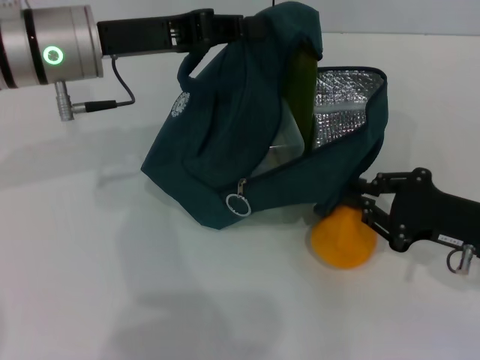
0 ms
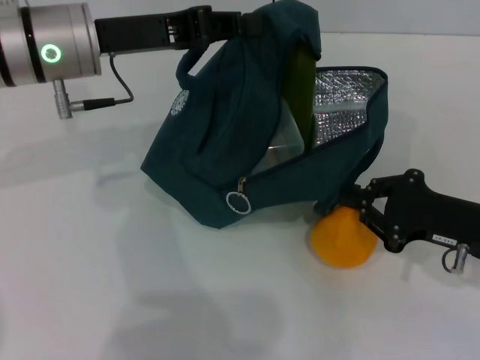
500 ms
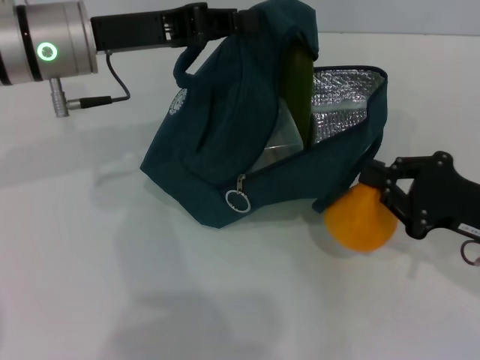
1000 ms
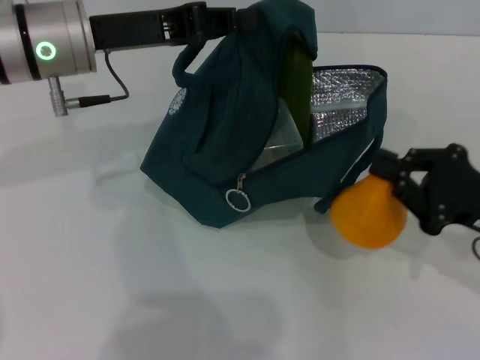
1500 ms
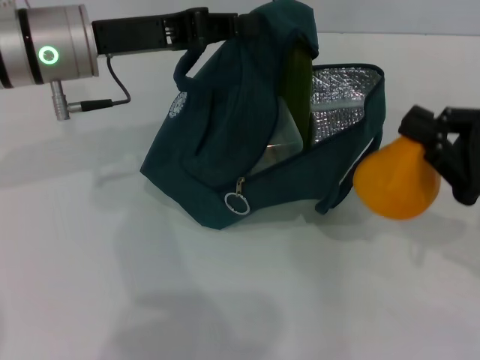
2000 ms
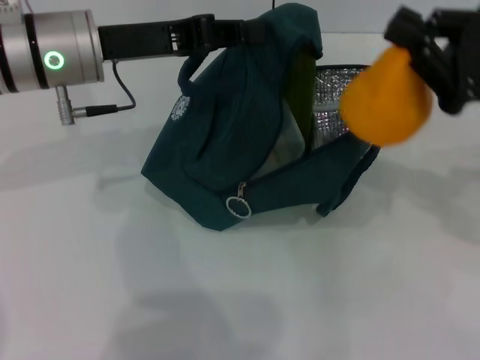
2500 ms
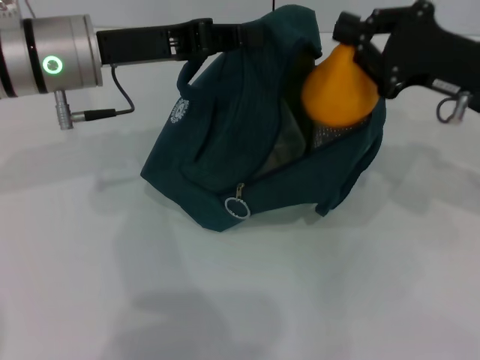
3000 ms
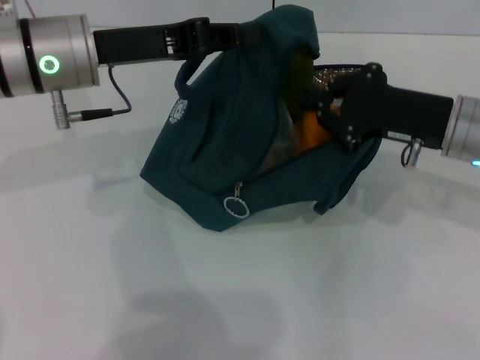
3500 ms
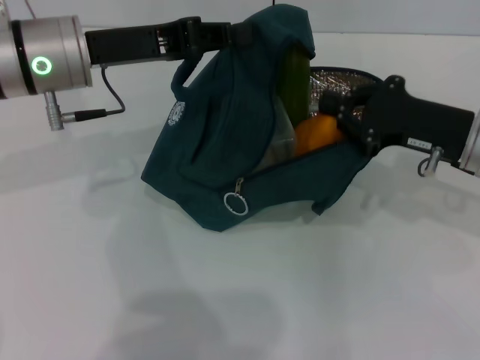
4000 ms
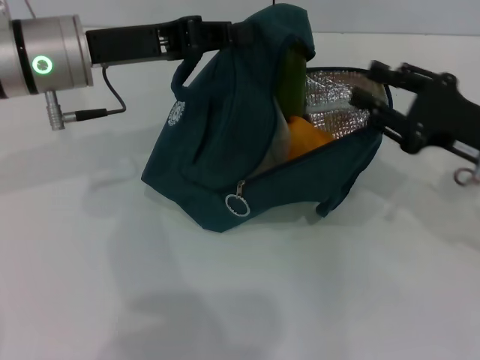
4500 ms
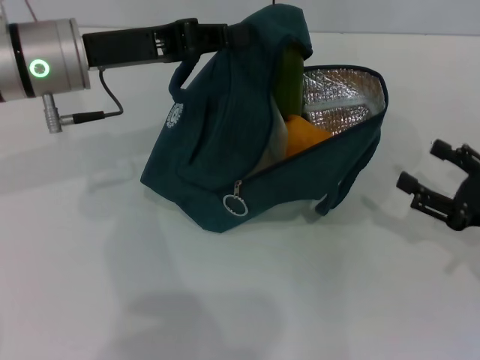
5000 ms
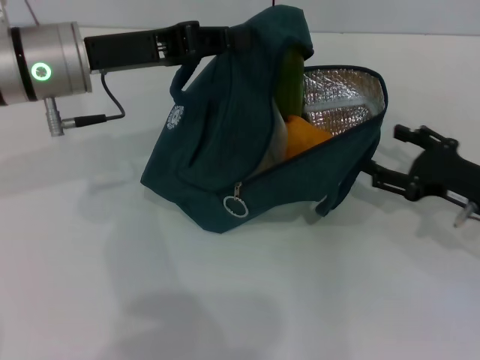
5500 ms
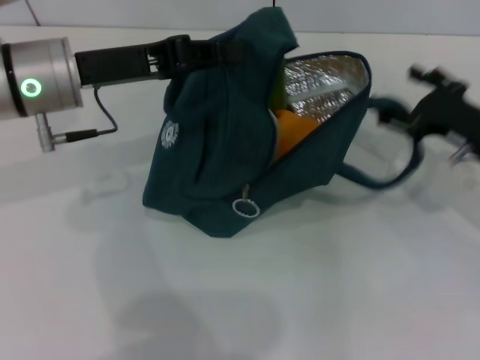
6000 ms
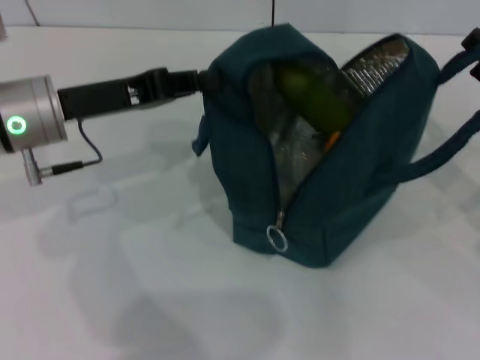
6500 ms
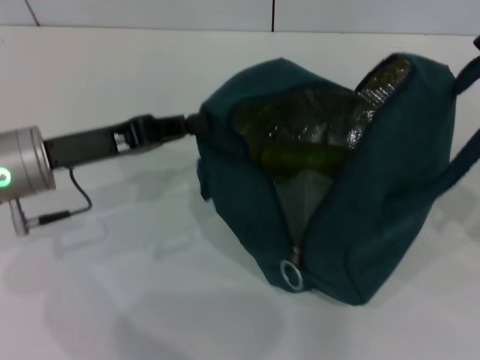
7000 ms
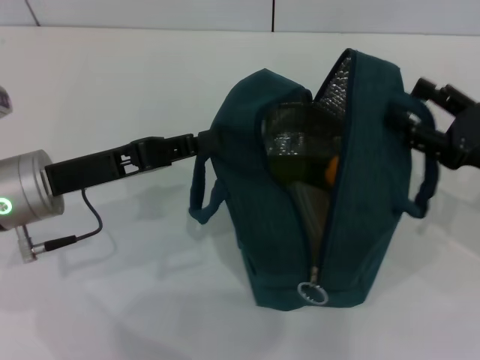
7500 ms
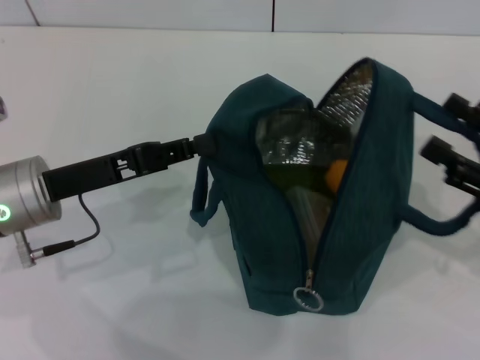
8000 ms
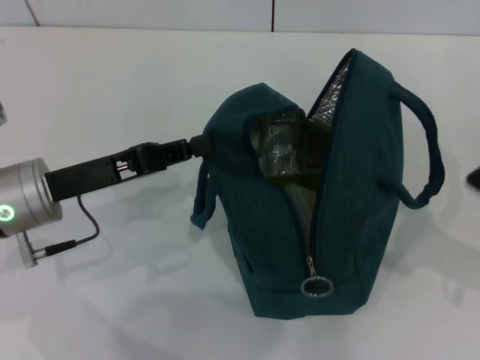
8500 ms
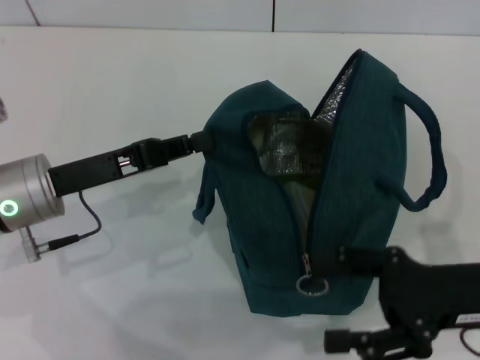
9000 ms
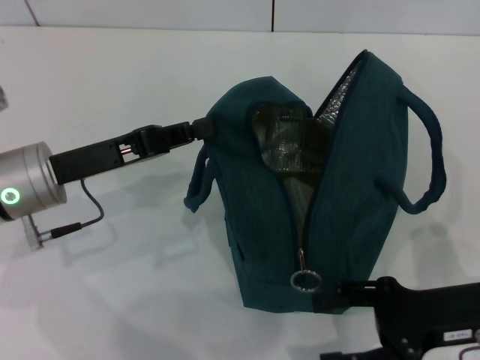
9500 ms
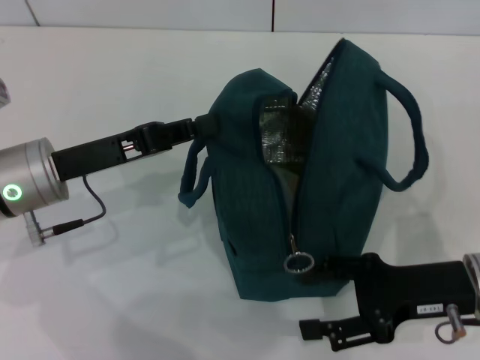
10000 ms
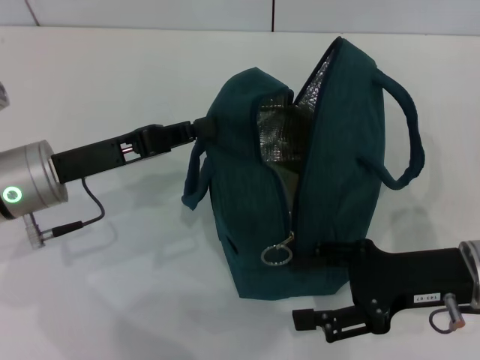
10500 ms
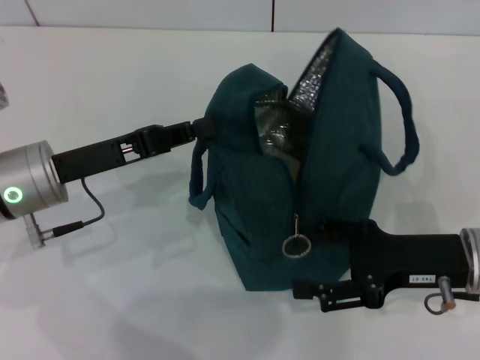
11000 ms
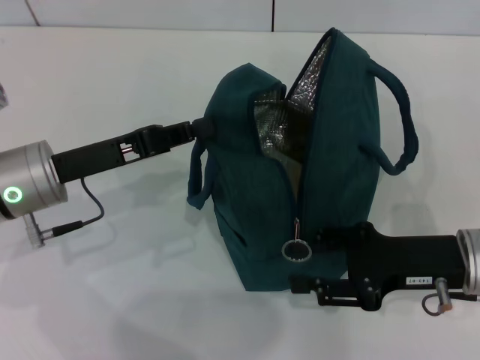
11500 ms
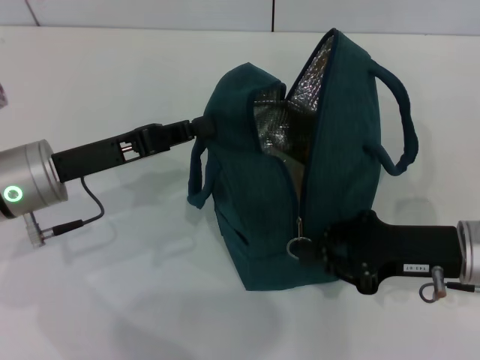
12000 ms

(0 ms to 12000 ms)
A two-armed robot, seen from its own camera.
Step, 4500 ms - 8000 ms: Hold the lunch bag with your right hand.
0 ms - 2000 ms: The right gripper is displaced upward by some 5 cm.
2000 ms - 4000 ms: The right gripper is displaced forward and to the left by approximately 10 cm.
4000 ms - 6000 ms: The right gripper reaches some 10 cm backward, then returns, and opens.
6000 ms - 8000 ms: The left gripper shifts approximately 10 cm backward and downward. Meanwhile the right gripper is displaced backward by some 10 cm.
8000 ms - 10000 ms: The right gripper shifts approximately 10 cm to the left.
10000 ms - 12000 ms: The right gripper closes its fingers.

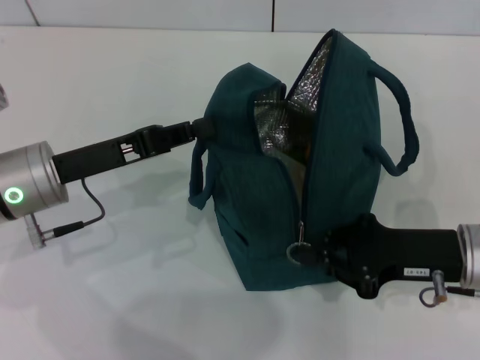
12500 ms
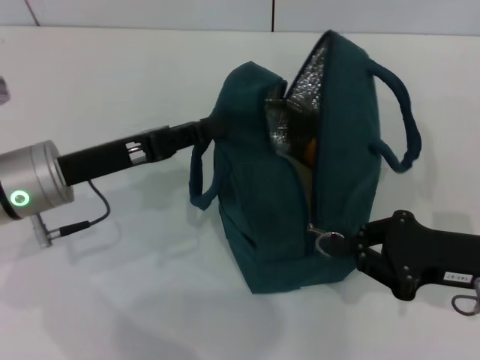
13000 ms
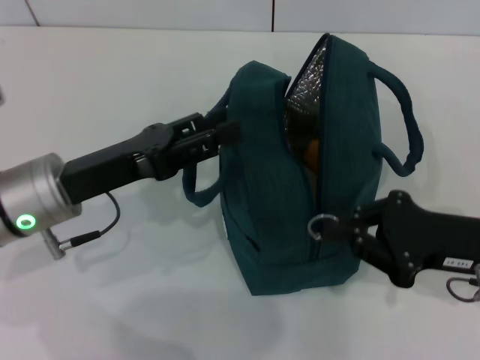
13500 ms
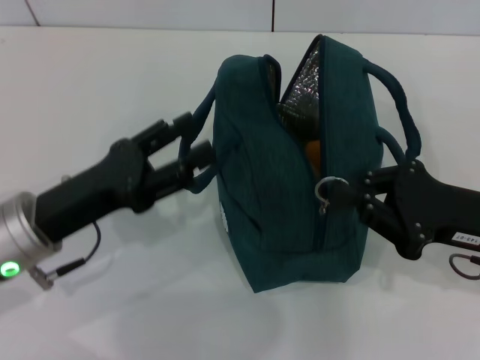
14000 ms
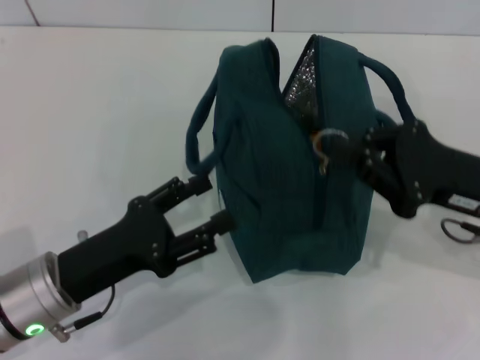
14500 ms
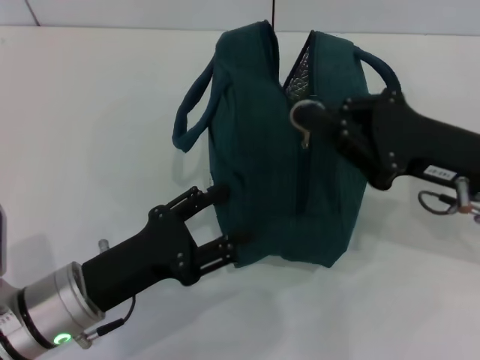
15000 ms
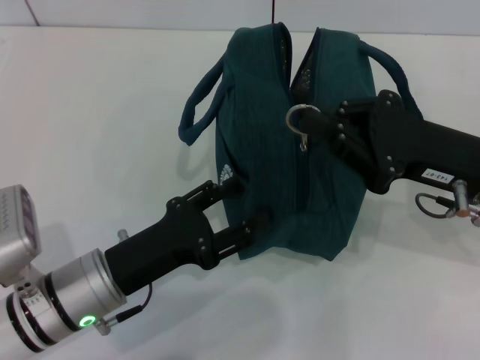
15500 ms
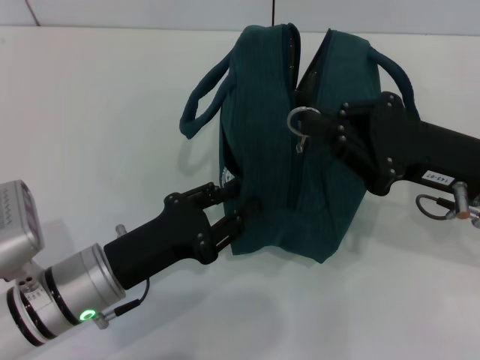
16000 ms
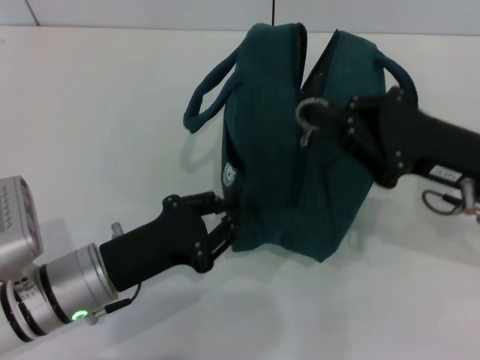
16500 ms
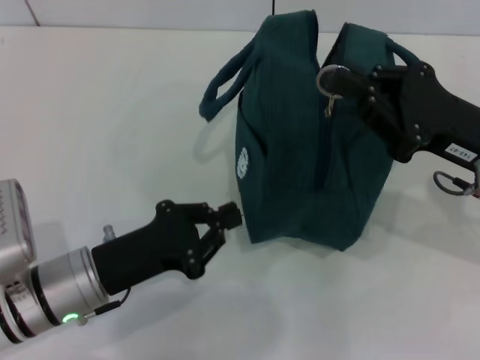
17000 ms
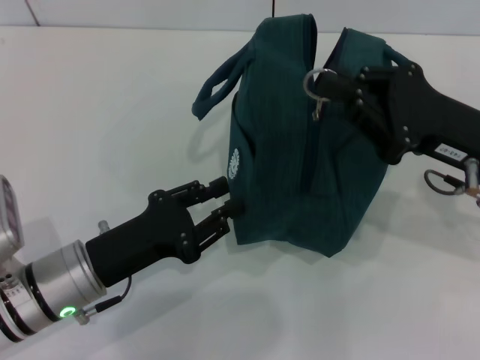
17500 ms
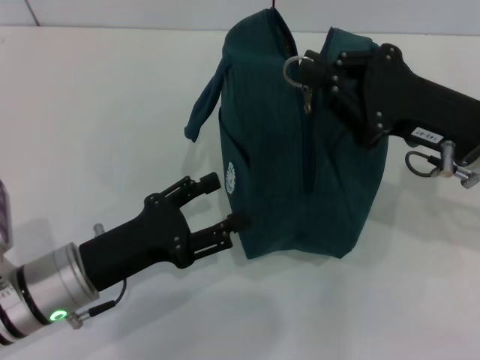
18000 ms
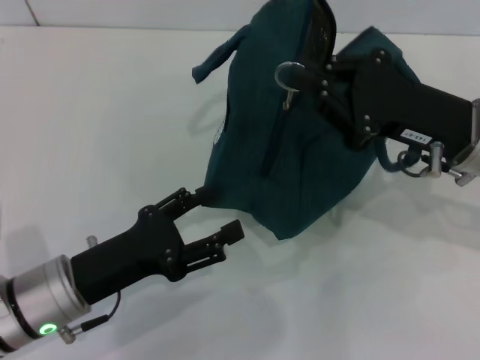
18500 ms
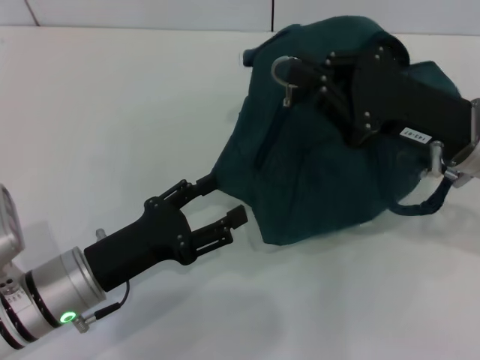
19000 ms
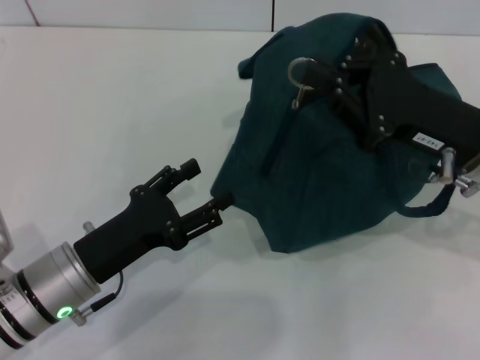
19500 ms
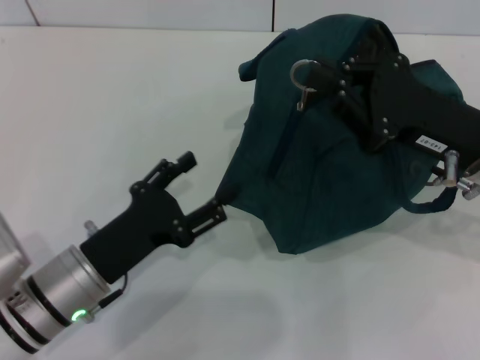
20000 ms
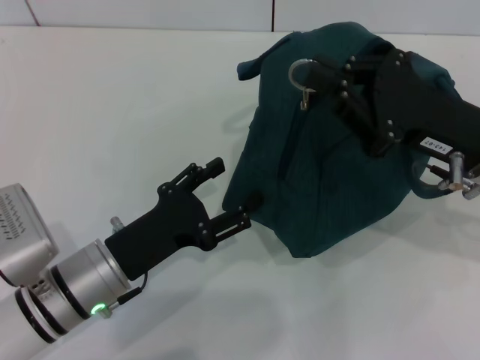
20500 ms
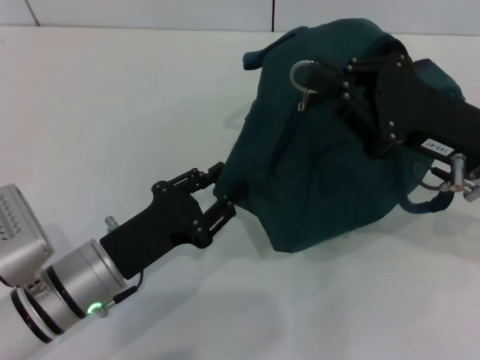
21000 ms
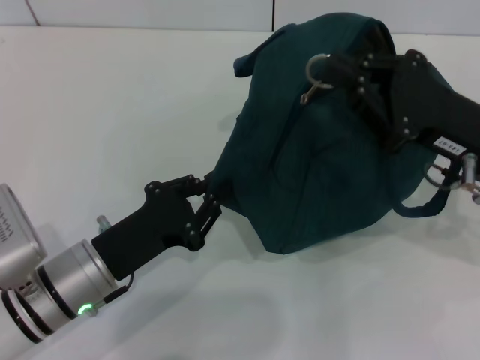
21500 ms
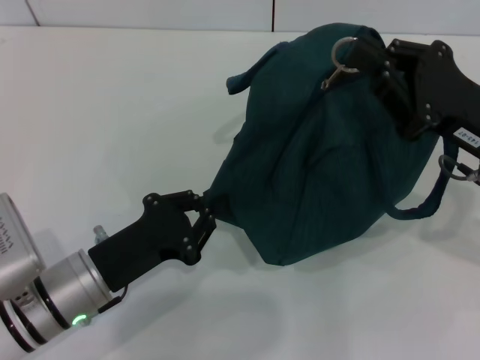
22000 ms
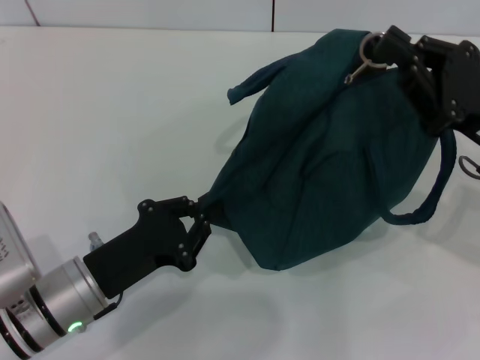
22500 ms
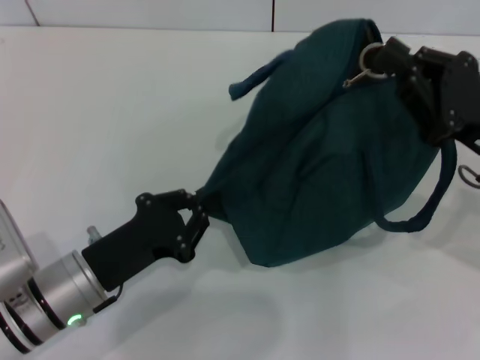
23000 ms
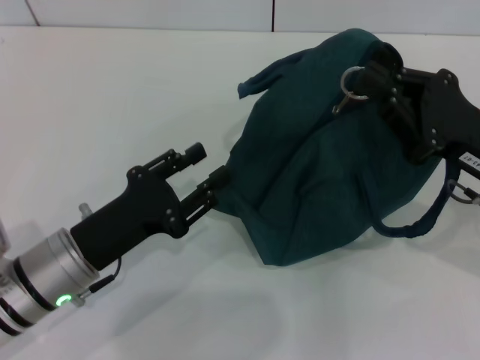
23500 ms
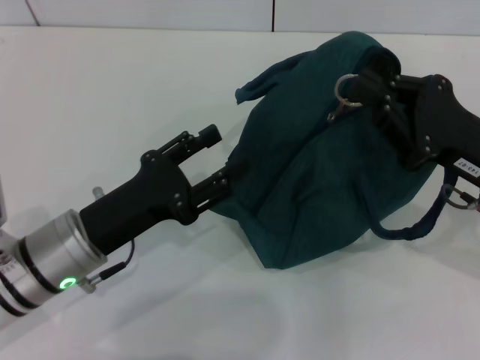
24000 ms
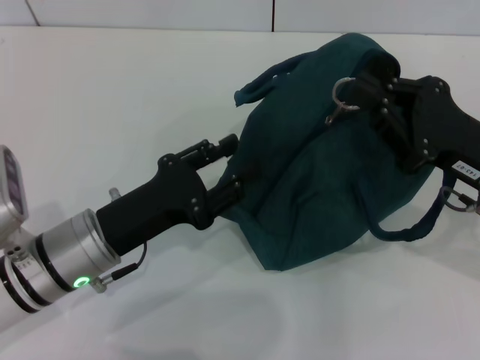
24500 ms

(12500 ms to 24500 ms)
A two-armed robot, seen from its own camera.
12500 ms - 14500 ms: The left gripper is displaced backward and downward by approximately 10 cm, and opens.
14500 ms - 16500 ms: The left gripper closes up.
16500 ms - 18500 ms: The left gripper opens.
20500 ms - 22500 ms: The left gripper closes its fingers.
22500 ms - 24500 ms: The left gripper changes place by some 5 cm, and opens.

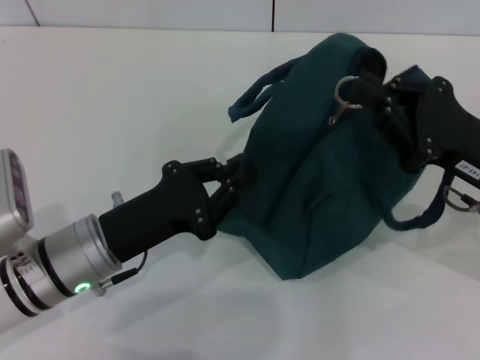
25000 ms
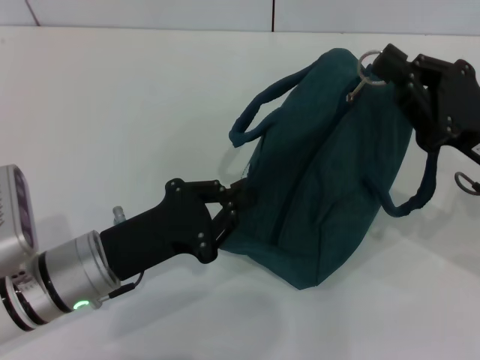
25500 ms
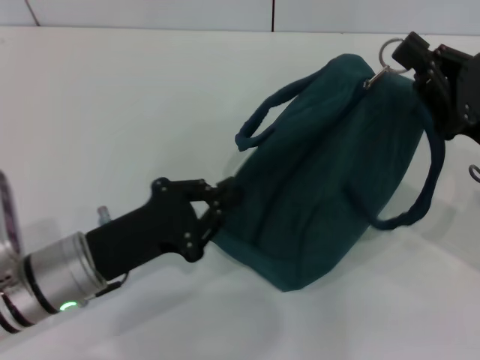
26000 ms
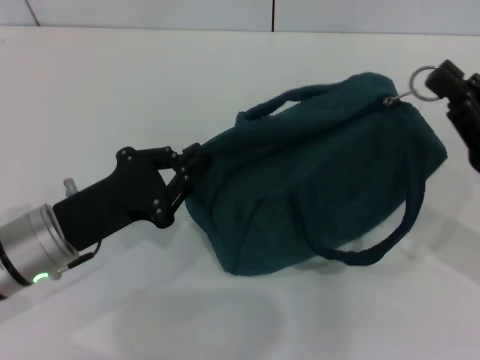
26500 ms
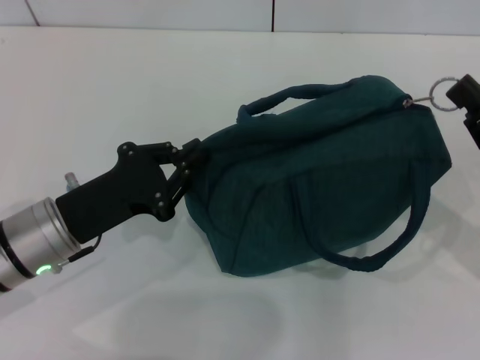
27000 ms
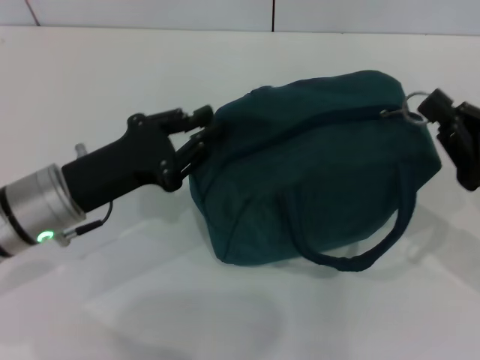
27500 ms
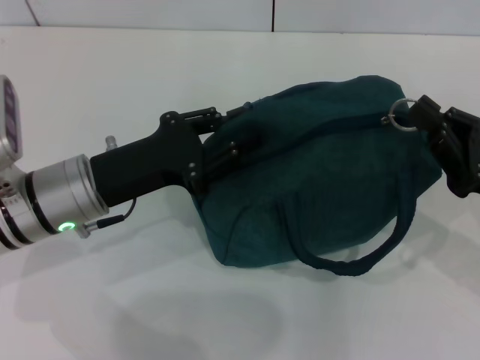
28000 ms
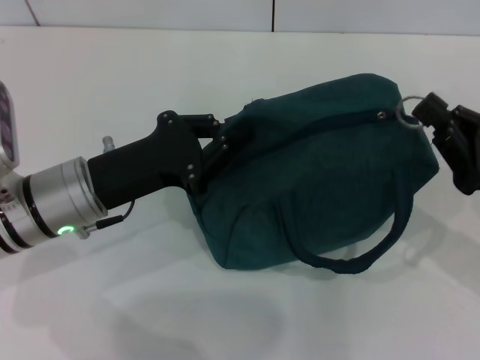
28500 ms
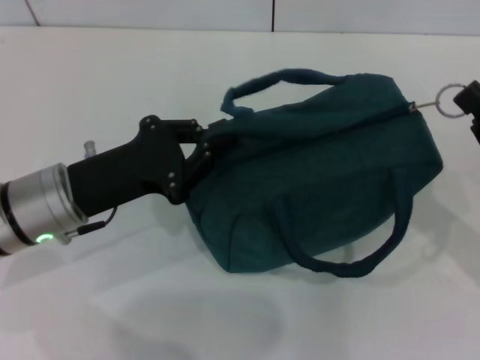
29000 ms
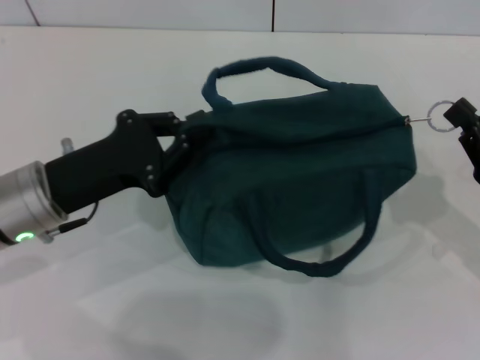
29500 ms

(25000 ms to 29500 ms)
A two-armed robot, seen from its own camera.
25000 ms - 27000 ms: The right gripper heads to the right, covering approximately 5 cm.
27000 ms - 29500 ms: There are only small adjustments of the grippers.
